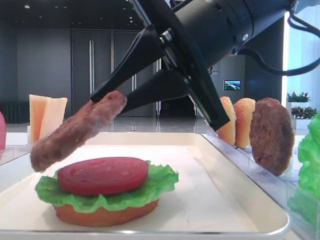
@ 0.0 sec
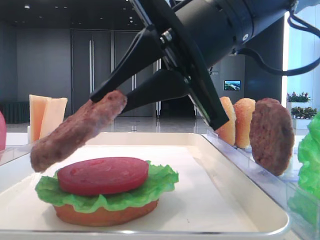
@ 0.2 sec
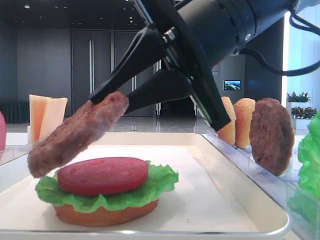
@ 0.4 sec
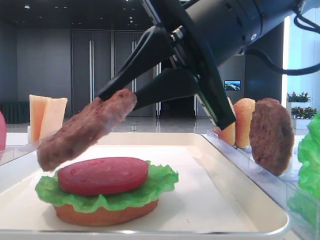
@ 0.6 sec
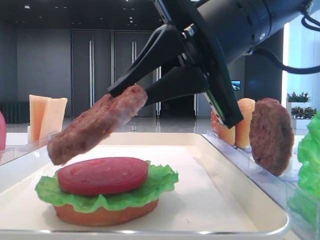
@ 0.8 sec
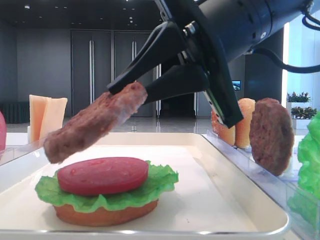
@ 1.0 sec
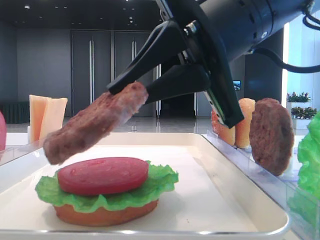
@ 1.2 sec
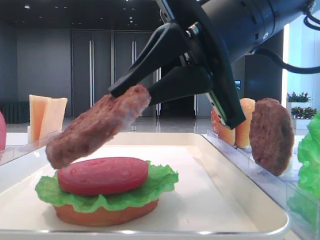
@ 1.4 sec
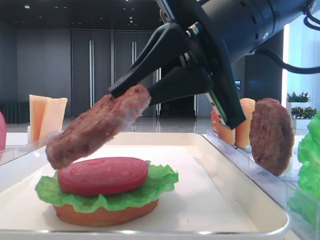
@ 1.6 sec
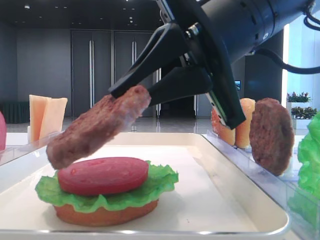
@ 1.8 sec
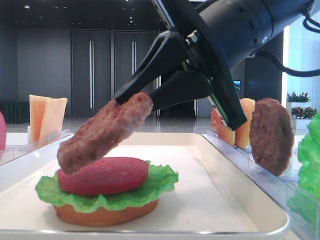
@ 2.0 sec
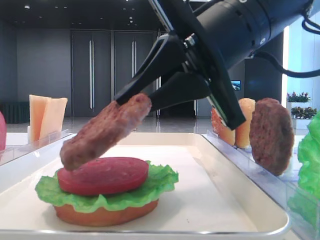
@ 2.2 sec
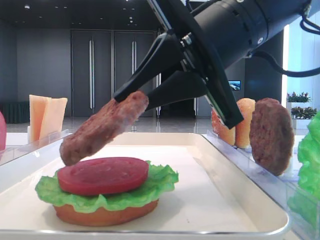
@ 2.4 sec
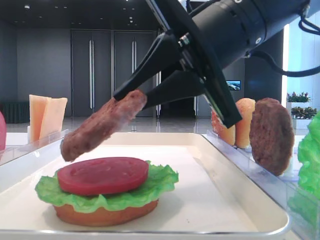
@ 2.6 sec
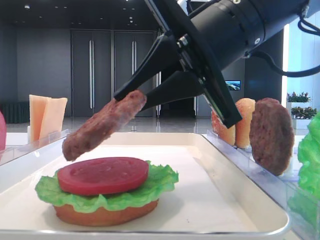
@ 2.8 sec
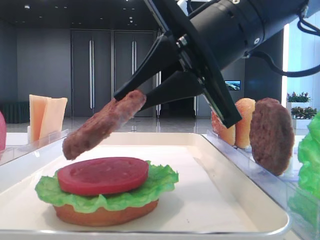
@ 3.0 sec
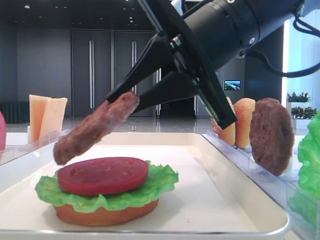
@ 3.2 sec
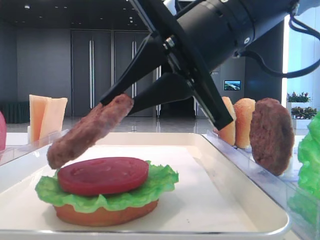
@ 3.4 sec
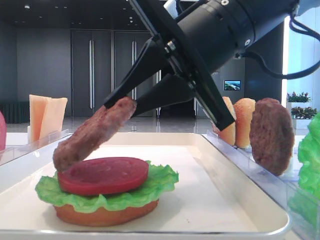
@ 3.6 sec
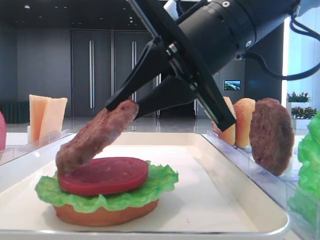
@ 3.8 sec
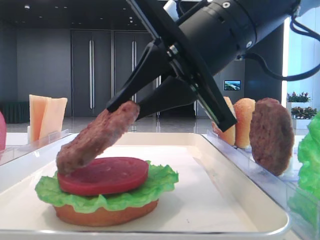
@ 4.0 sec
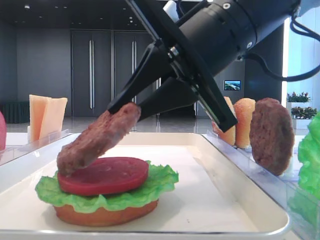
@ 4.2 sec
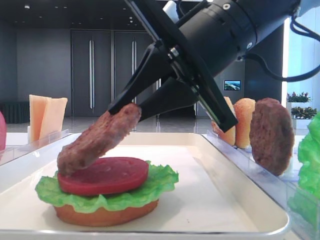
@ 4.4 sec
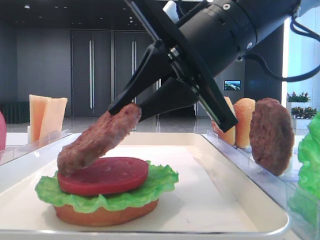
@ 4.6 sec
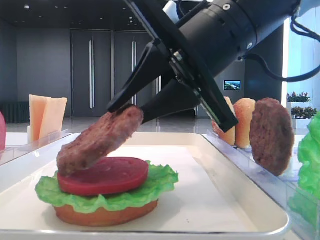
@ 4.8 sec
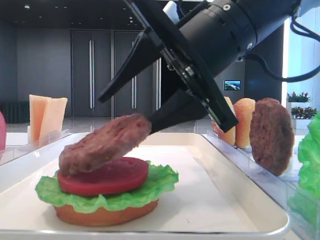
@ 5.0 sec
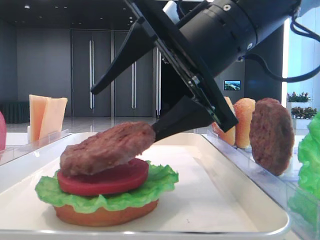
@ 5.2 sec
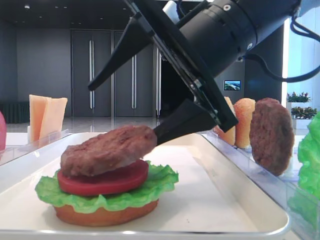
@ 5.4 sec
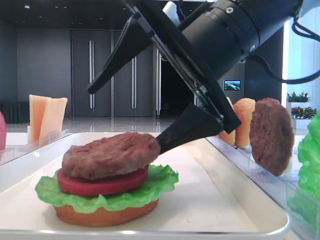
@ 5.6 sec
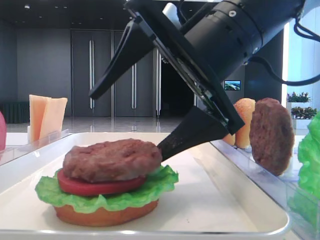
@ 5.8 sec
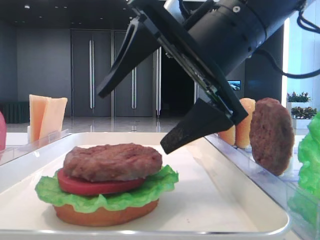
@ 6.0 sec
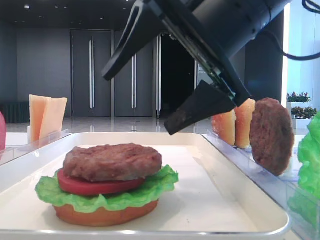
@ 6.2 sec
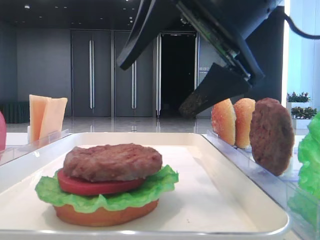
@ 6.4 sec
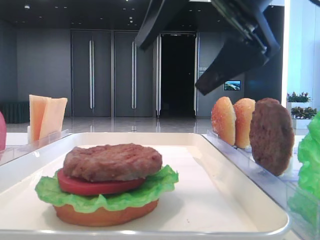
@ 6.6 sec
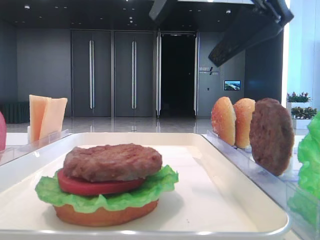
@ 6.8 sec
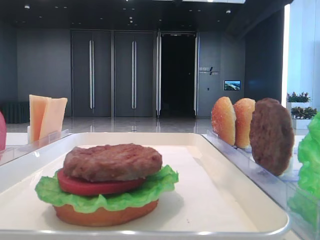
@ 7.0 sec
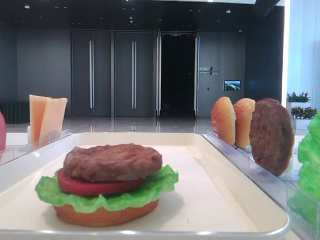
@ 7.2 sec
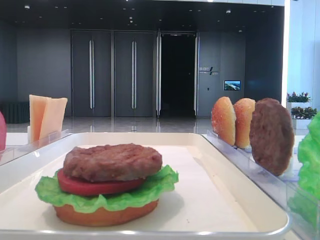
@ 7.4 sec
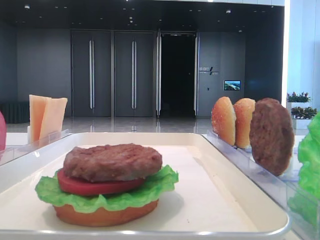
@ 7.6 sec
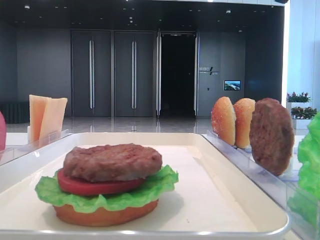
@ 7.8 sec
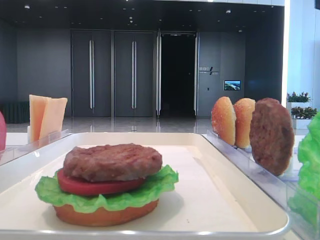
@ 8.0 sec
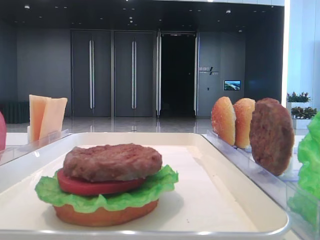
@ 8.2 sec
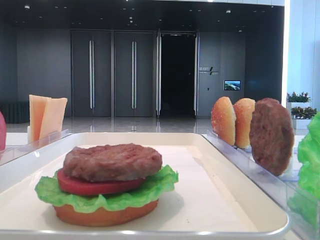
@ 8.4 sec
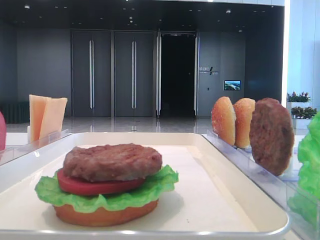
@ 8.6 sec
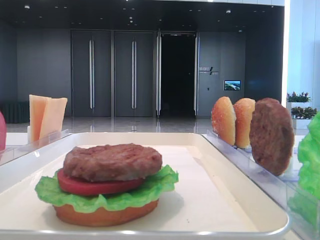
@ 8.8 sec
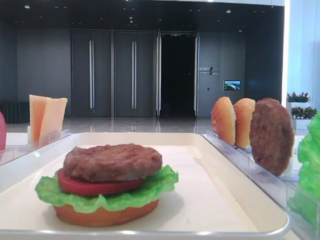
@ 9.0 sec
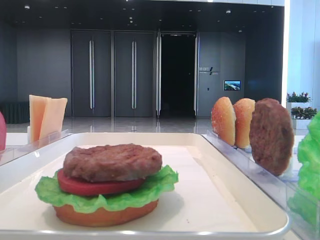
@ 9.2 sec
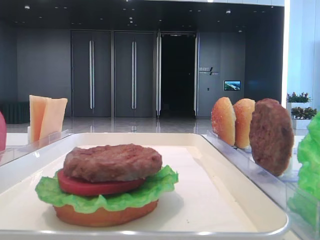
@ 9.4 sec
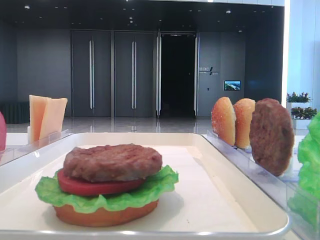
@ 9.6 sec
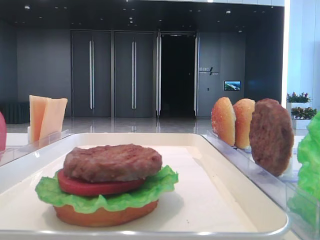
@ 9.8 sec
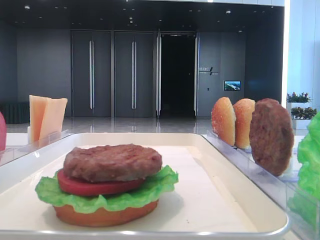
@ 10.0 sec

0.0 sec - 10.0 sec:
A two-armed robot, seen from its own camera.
Step, 0.0 sec - 5.8 sec: Place the patty on the tomato slice with the right hand.
0.0 sec - 4.2 sec: The grippers move only a little.
4.2 sec - 5.8 sec: The right gripper opens its fingers.
5.8 sec - 7.2 sec: The right gripper shifts about 15 cm upward and to the right.

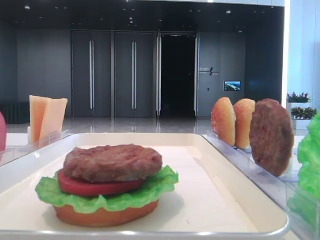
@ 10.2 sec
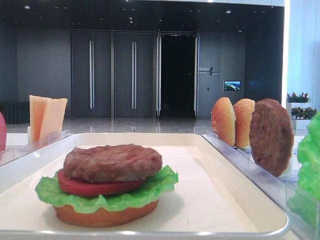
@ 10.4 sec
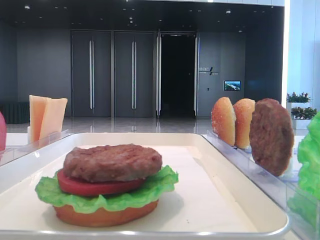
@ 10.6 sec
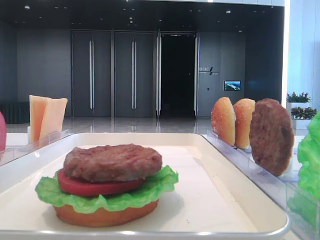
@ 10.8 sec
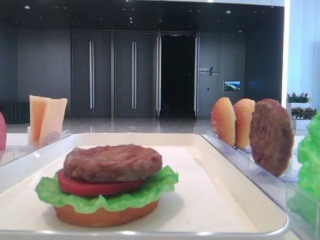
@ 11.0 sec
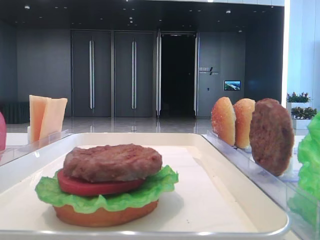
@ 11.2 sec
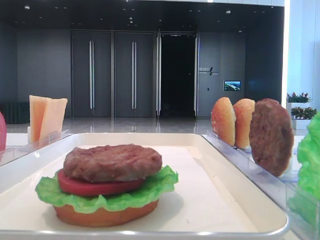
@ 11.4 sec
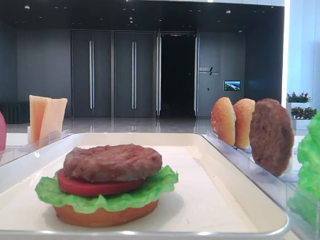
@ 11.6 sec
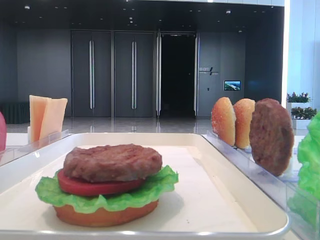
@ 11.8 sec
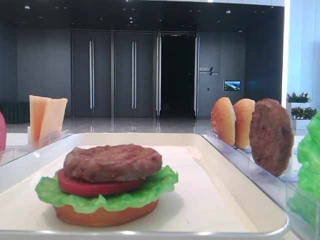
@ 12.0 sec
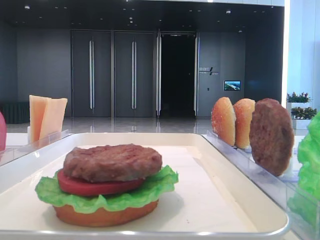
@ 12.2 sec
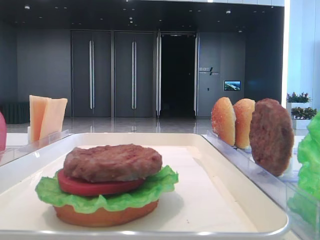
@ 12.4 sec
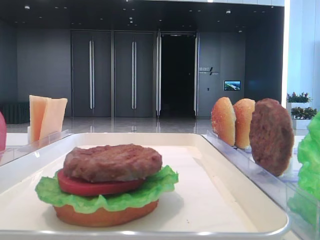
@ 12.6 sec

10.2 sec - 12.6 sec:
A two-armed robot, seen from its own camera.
11.4 sec - 12.6 sec: Neither gripper changes place.
